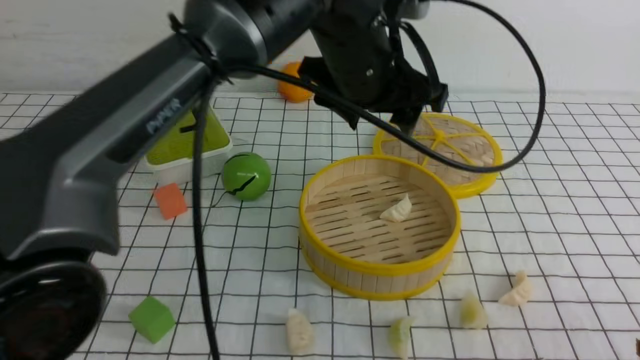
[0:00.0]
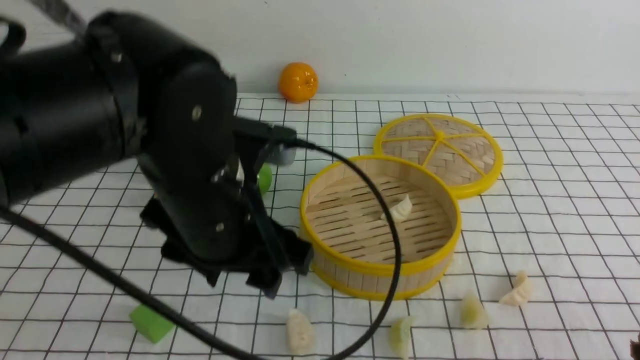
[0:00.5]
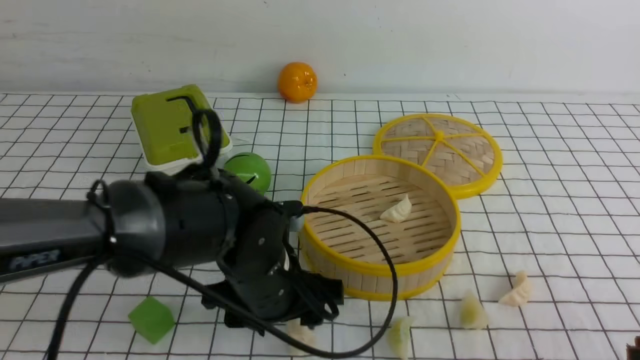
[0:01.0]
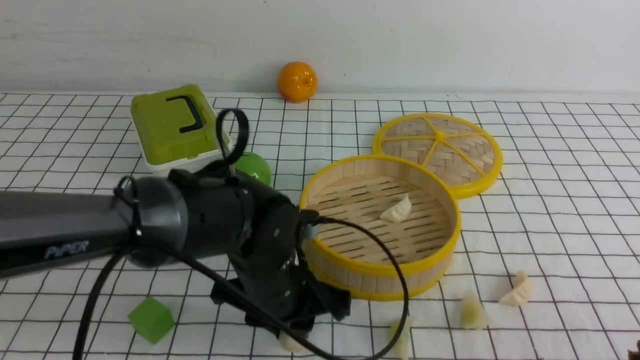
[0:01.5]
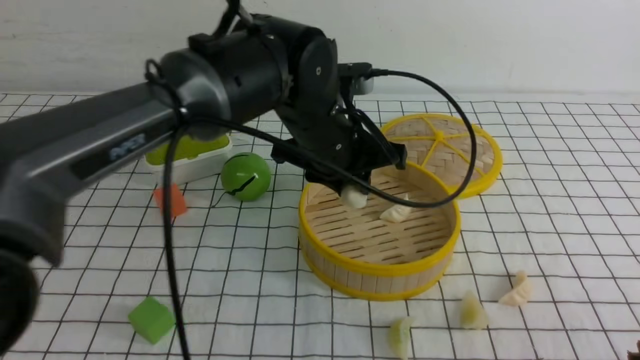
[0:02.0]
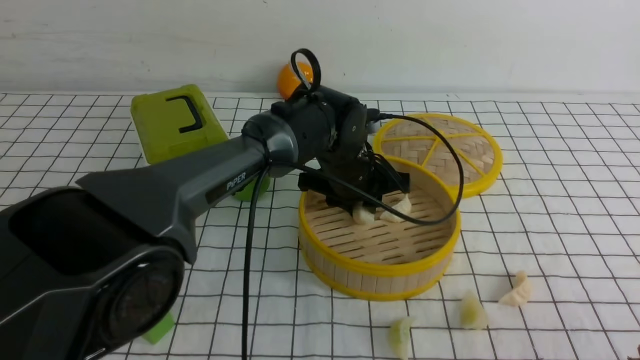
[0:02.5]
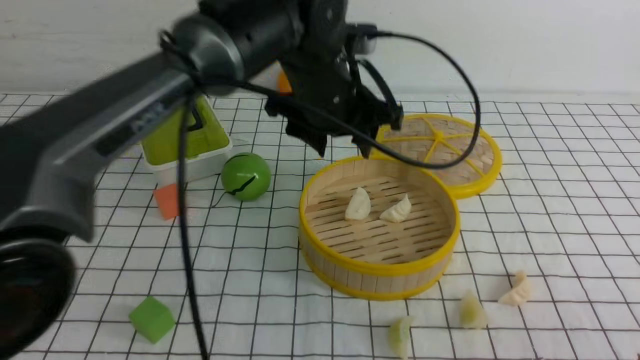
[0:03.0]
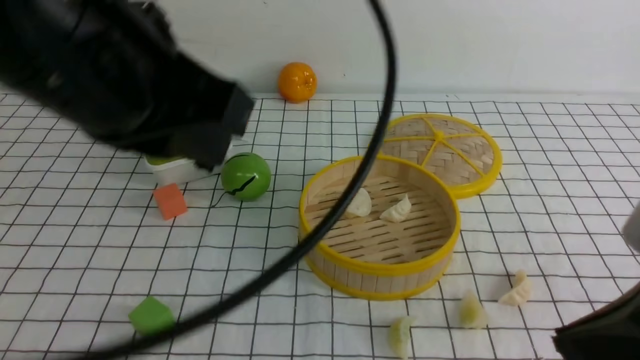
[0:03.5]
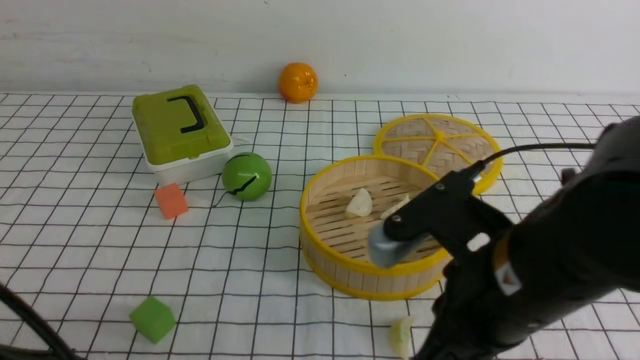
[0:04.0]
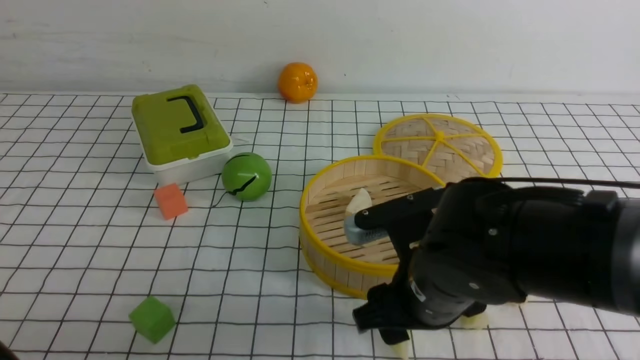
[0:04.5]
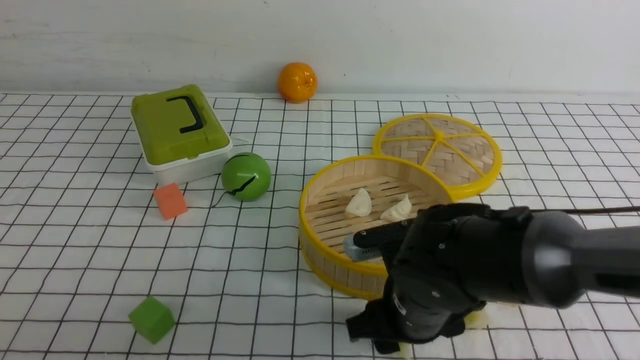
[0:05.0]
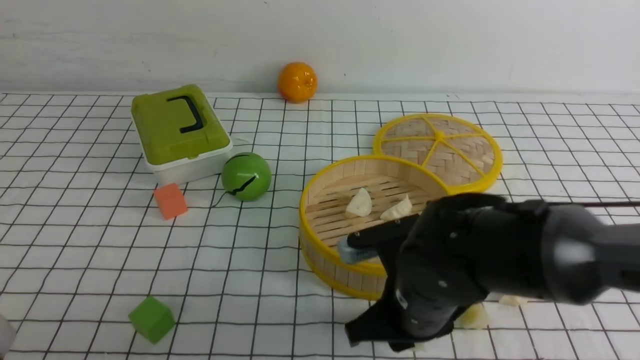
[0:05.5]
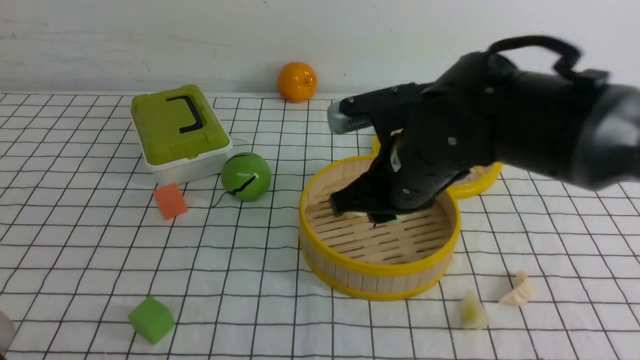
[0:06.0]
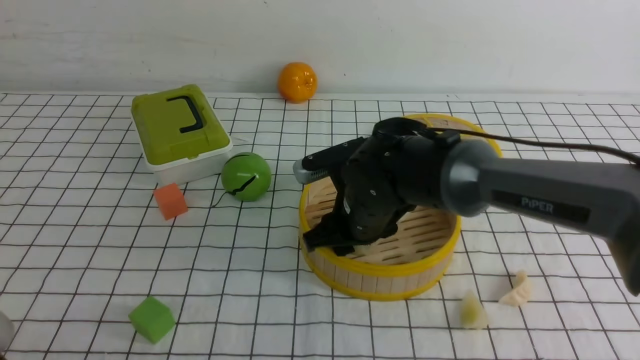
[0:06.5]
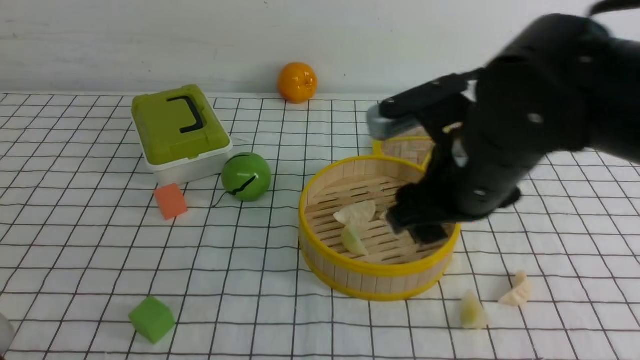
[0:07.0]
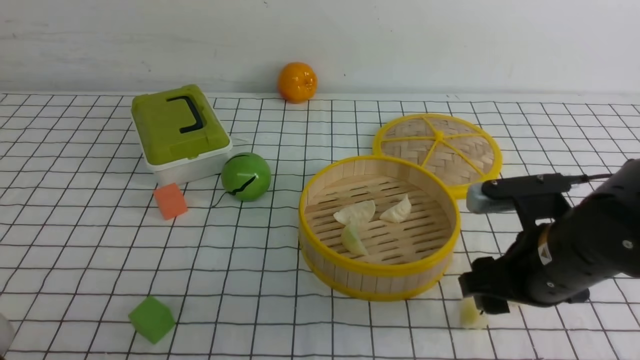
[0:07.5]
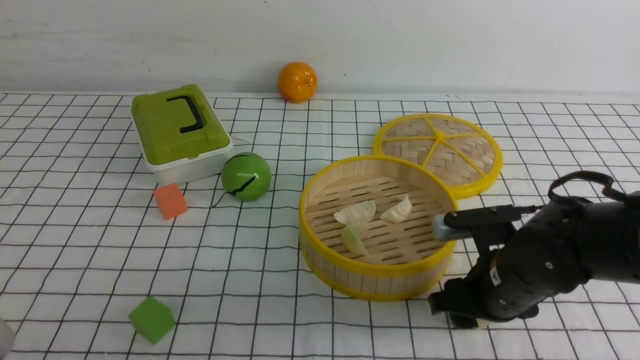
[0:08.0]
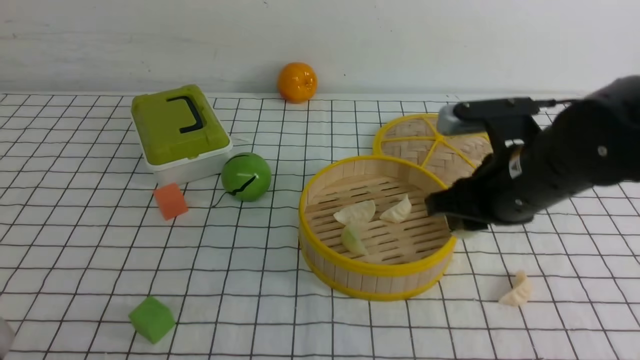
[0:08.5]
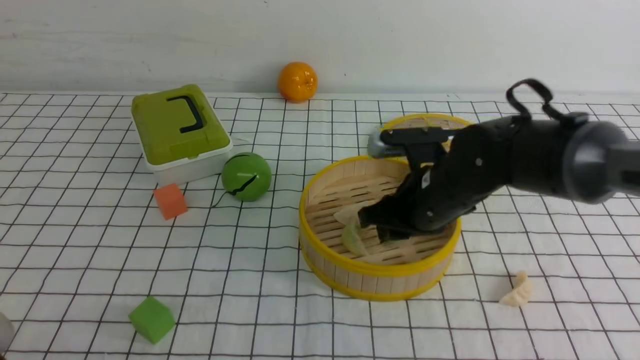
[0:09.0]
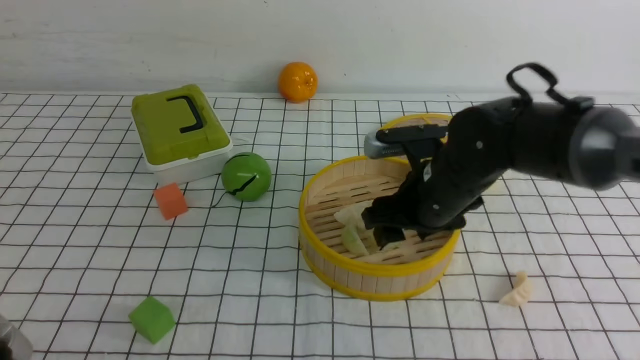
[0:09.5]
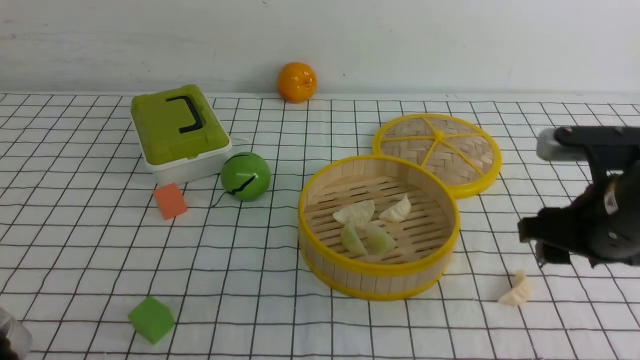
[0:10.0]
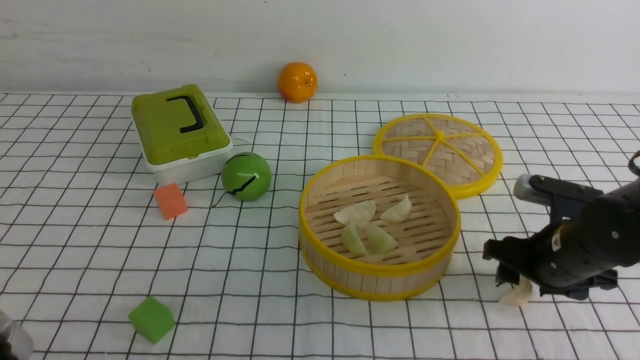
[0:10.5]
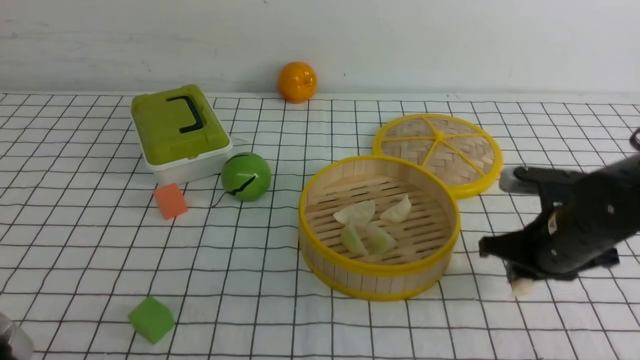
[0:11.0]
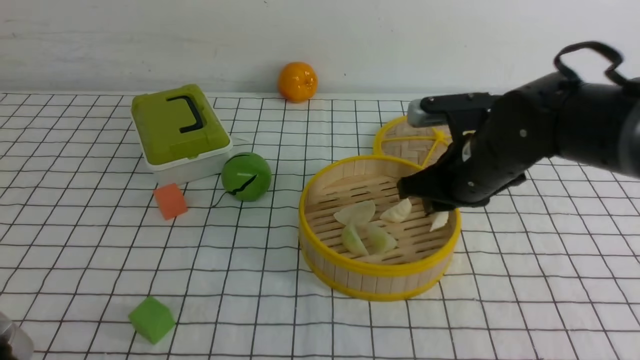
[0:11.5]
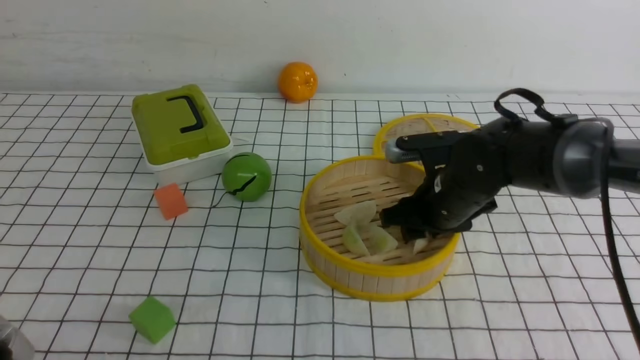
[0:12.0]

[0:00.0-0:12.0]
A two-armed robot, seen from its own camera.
Task of the whole recording: put the dumplings into the steamer on the table with the white tablecloth.
Step, 0:00.0 to 0:01.5: use the left arm to grab a dumpling.
Step, 0:02.0 to 0:03.0: use the left arm to put the dumpling into the steamer.
Step, 0:03.5 to 0:05.5: use the right arm to grab a dumpling.
Step, 0:06.0 to 0:06.5: use the right arm to put the dumpling into the steamer.
Step, 0:07.5 to 0:08.5: use the right arm to grab a dumpling.
Step, 0:09.0 to 0:09.5: use the right arm to put the dumpling into the steamer.
Step, 0:10.0 to 0:11.0: use the right arm to grab a dumpling.
0:00.0 to 0:02.0: The left gripper heads downward, covering roughly 10 cm, and closes.
0:02.0 to 0:04.0: The right gripper shifts about 20 cm to the left and forward. Meanwhile the left gripper goes roughly 40 cm backward and to the left, and closes its fingers.
0:04.0 to 0:06.0: The right gripper shifts roughly 15 cm forward, and opens, then closes again.
0:06.0 to 0:08.0: The right gripper travels to the right and downward by roughly 15 cm.
0:08.0 to 0:10.0: The right gripper travels to the right by approximately 5 cm.
0:10.0 to 0:12.0: The right gripper swings up and down, some 15 cm each way, with 3 reversals, and closes up.

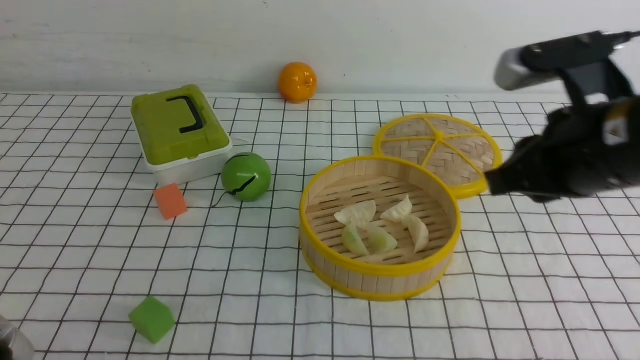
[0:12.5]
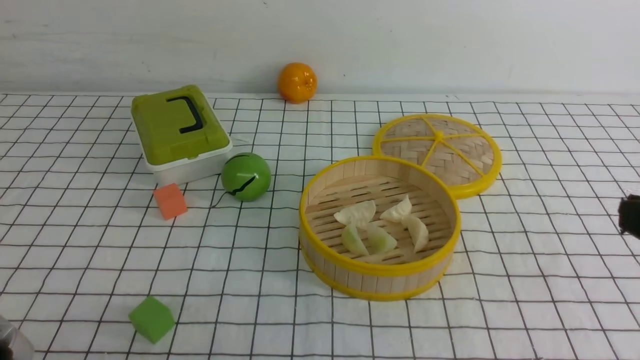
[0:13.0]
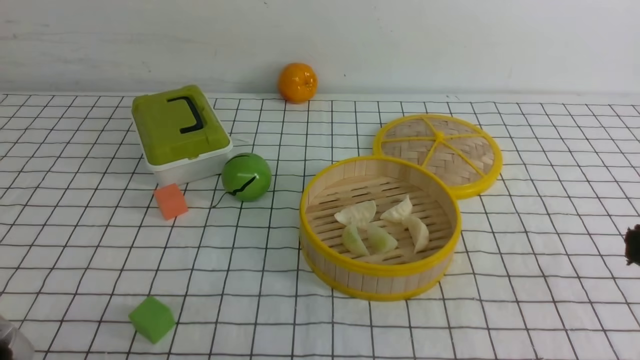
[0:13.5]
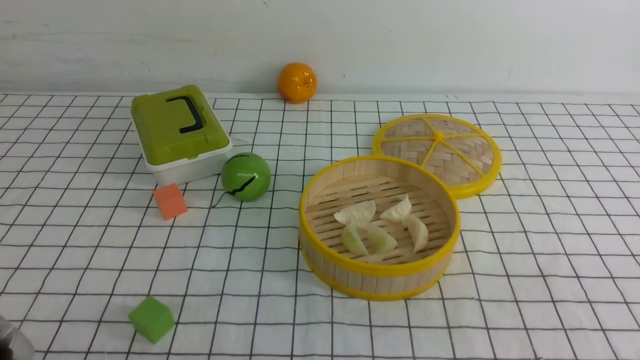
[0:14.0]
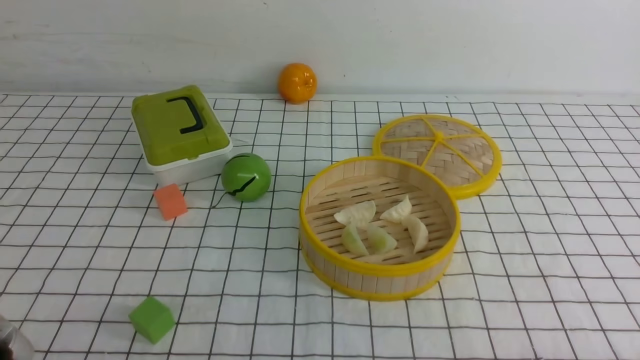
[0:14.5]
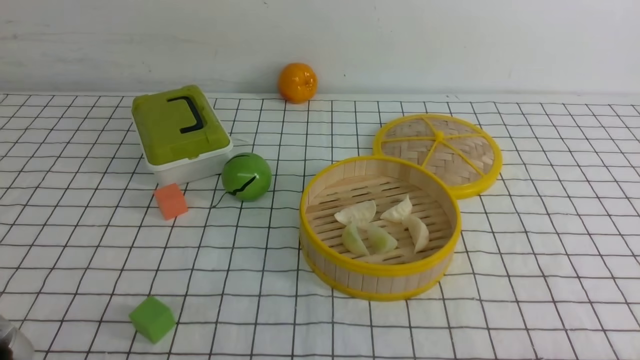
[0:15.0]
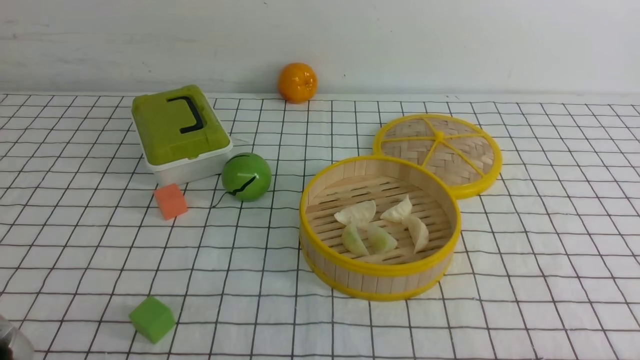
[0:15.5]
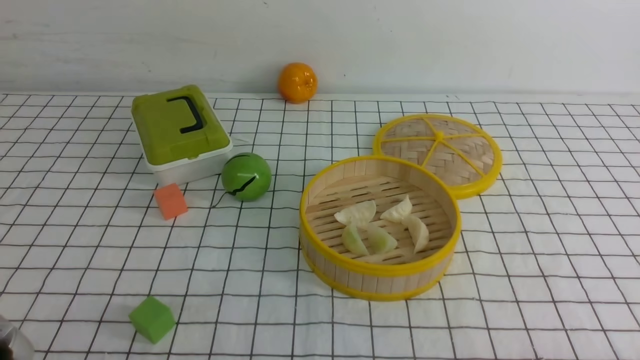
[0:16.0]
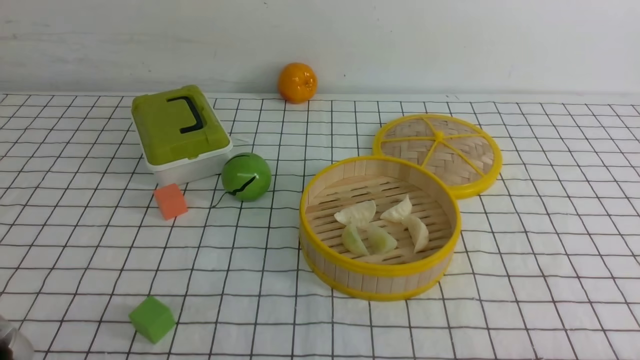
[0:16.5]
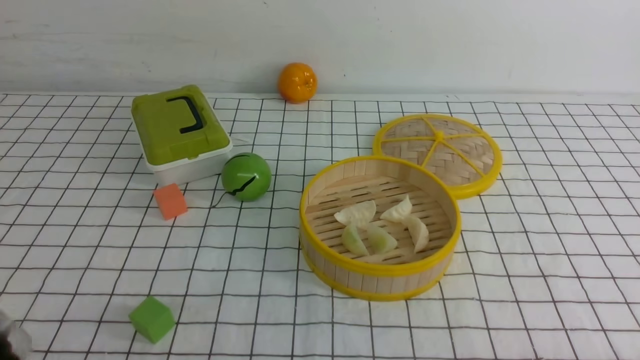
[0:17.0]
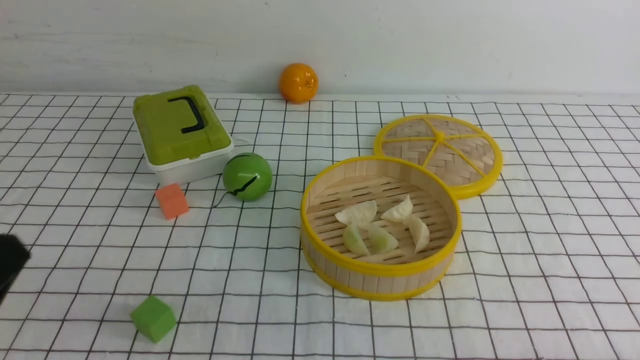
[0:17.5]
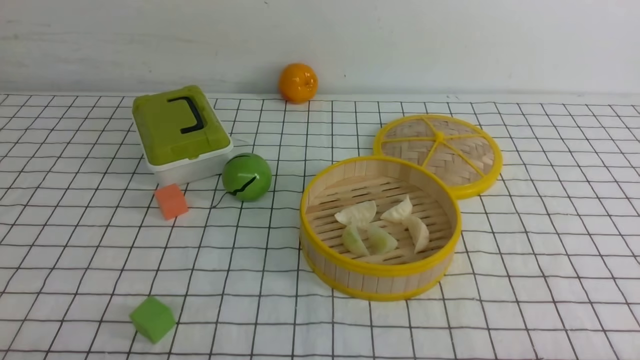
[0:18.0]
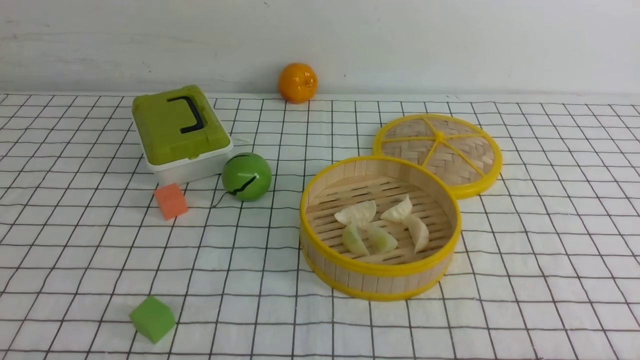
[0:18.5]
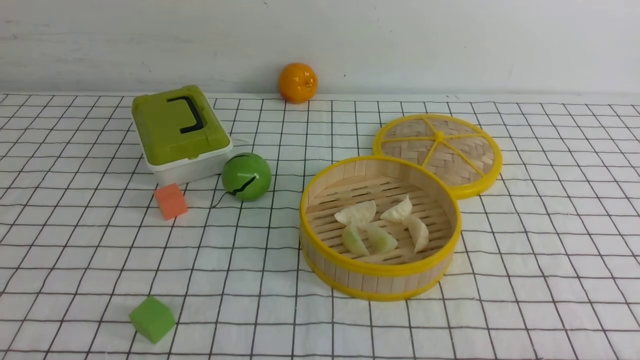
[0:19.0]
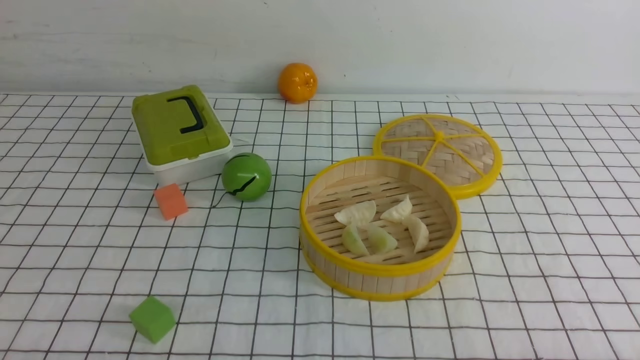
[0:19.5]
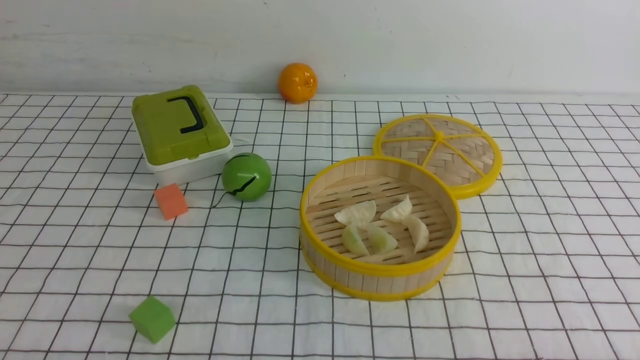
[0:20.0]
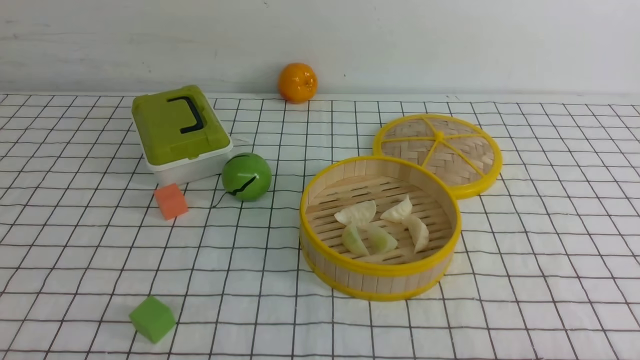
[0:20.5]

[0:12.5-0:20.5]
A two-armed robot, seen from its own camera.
Task of the whole recording: put the dumplings into the steamer on the table with the white tablecloth.
0:12.5 to 0:14.5: The right gripper goes about 20 cm downward and backward.
0:14.5 to 0:16.5: Both grippers stay about where they are.
0:18.5 to 0:20.5: The two grippers keep their place.
